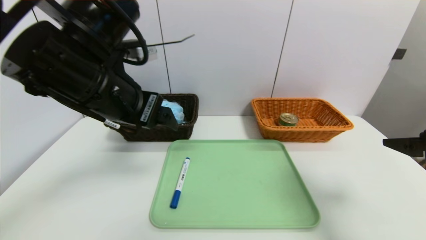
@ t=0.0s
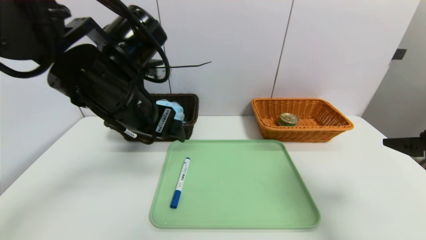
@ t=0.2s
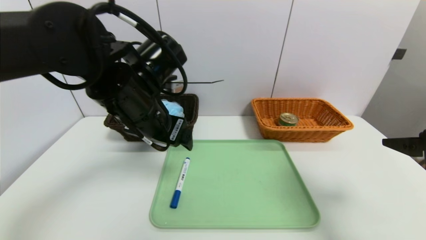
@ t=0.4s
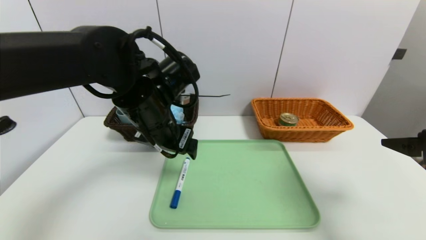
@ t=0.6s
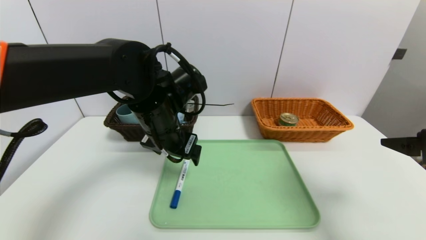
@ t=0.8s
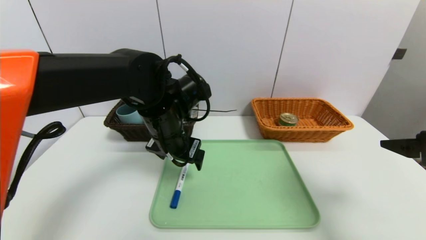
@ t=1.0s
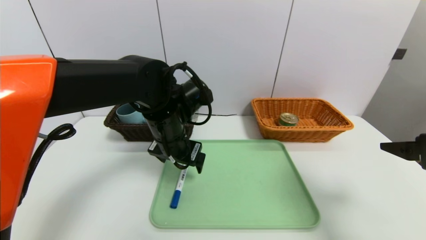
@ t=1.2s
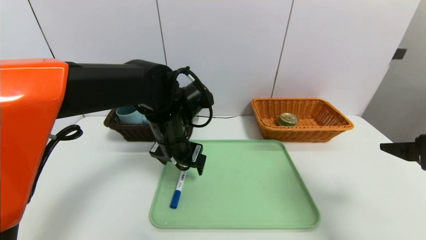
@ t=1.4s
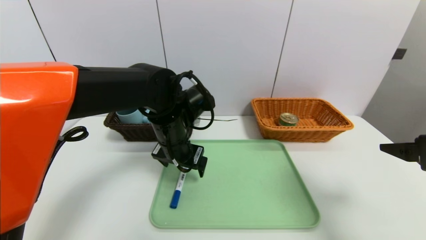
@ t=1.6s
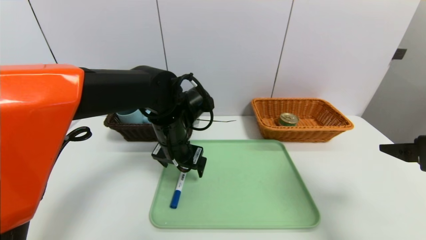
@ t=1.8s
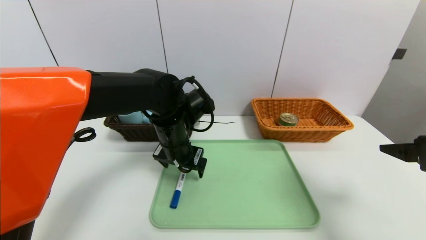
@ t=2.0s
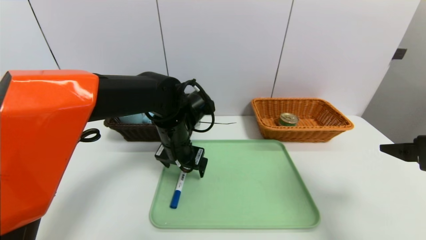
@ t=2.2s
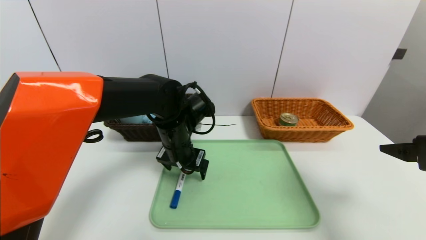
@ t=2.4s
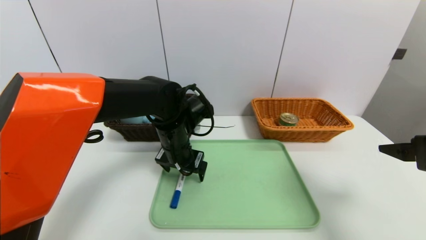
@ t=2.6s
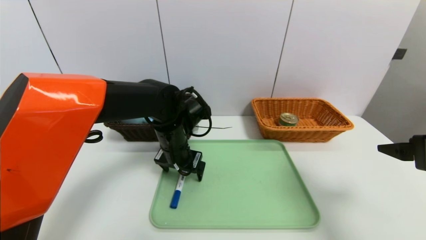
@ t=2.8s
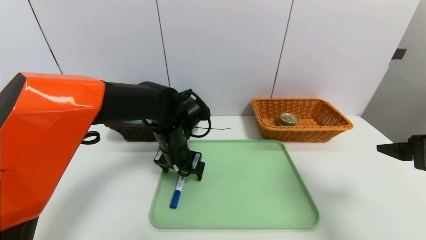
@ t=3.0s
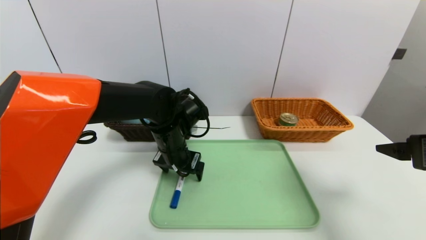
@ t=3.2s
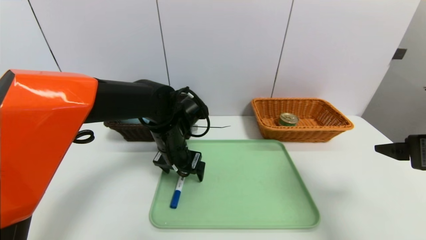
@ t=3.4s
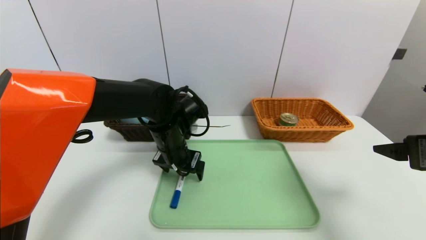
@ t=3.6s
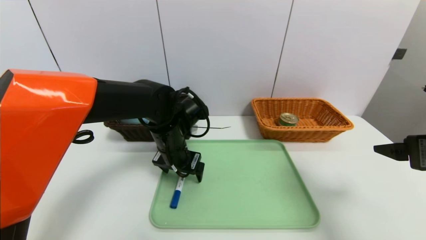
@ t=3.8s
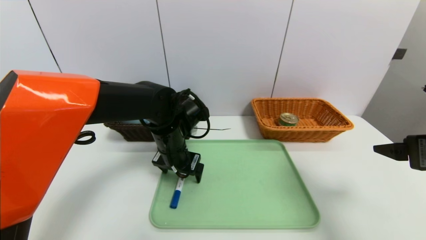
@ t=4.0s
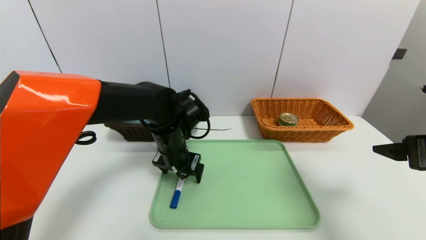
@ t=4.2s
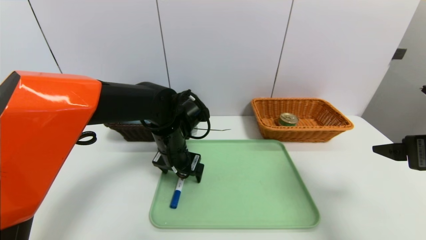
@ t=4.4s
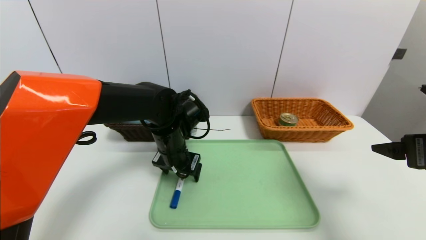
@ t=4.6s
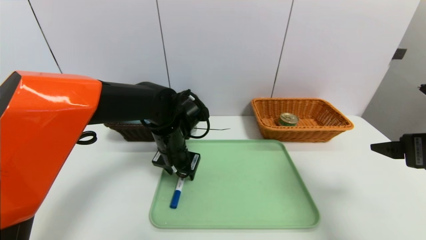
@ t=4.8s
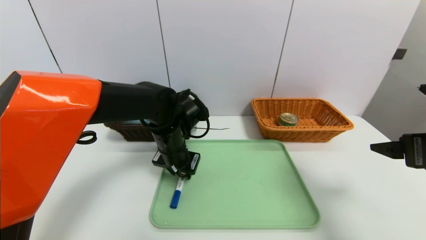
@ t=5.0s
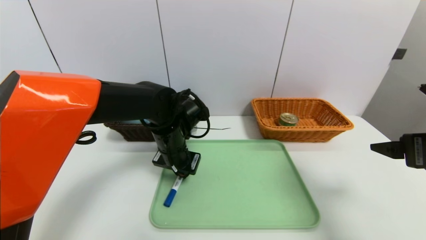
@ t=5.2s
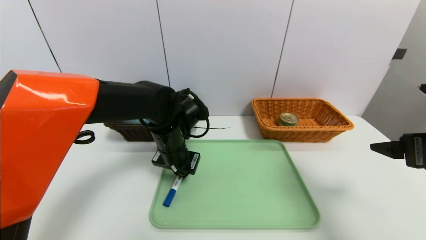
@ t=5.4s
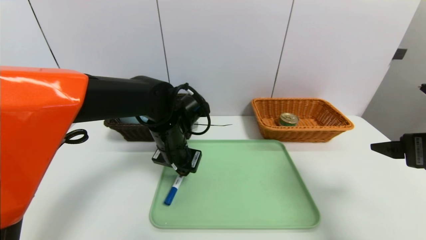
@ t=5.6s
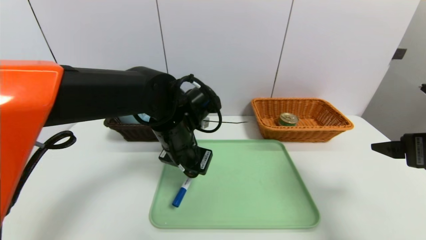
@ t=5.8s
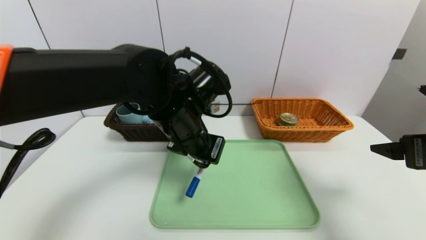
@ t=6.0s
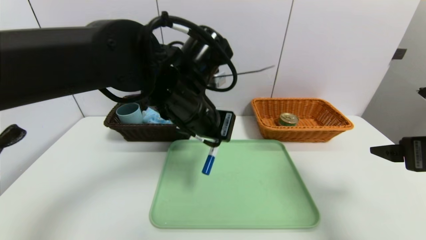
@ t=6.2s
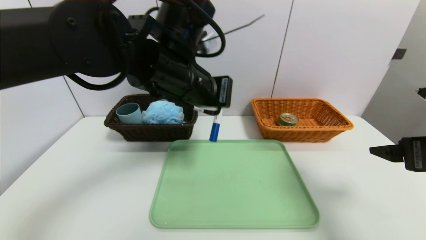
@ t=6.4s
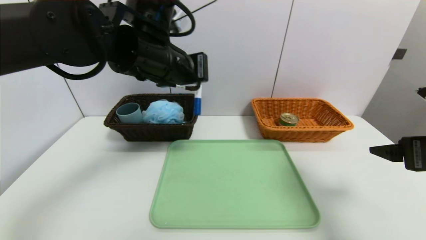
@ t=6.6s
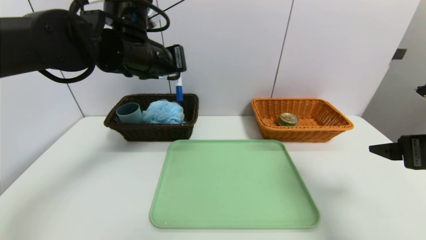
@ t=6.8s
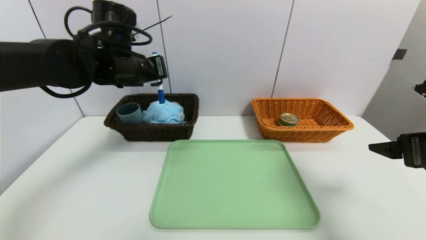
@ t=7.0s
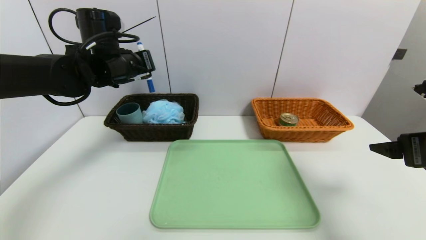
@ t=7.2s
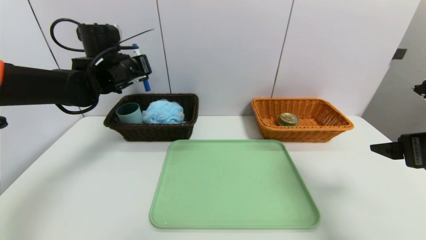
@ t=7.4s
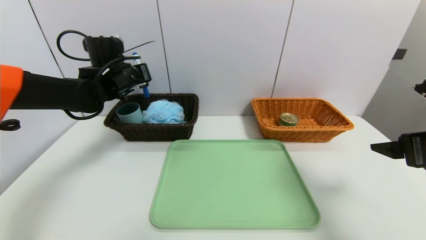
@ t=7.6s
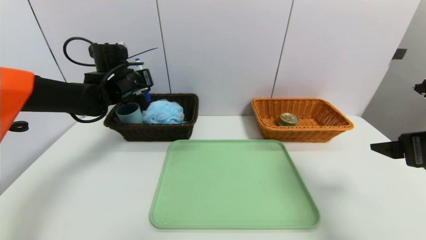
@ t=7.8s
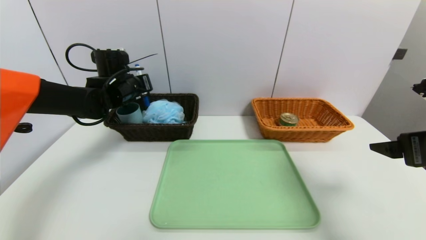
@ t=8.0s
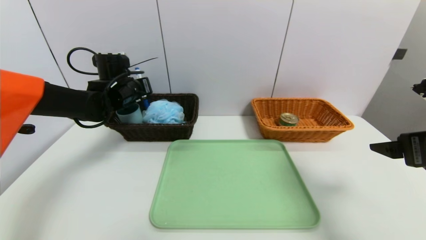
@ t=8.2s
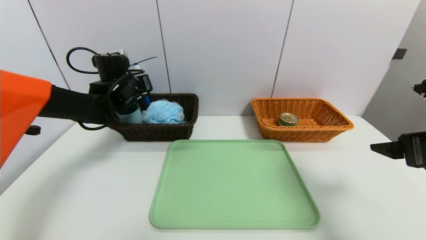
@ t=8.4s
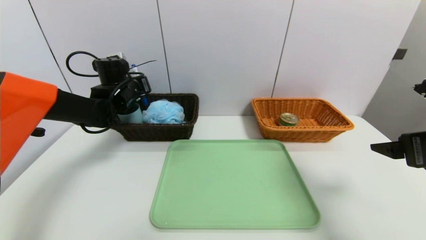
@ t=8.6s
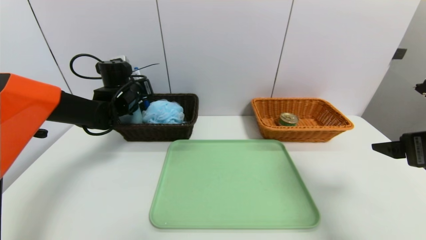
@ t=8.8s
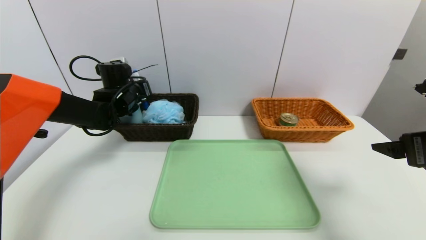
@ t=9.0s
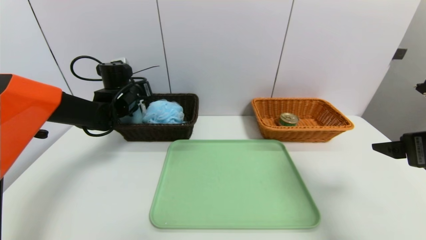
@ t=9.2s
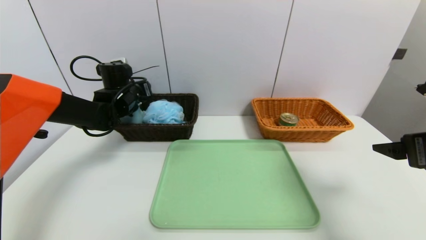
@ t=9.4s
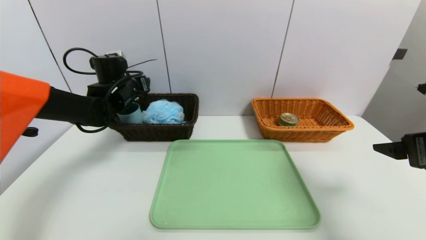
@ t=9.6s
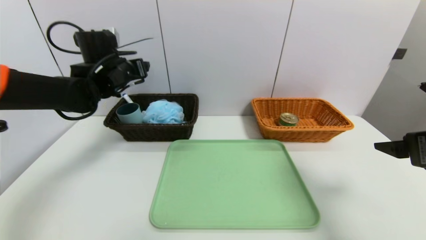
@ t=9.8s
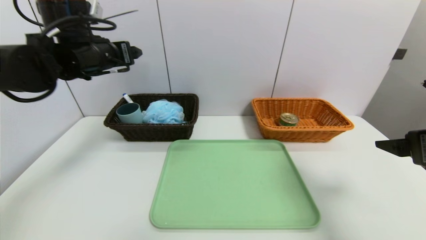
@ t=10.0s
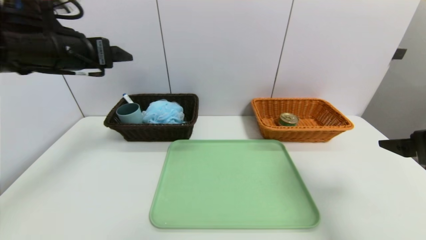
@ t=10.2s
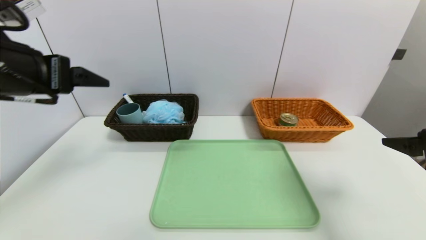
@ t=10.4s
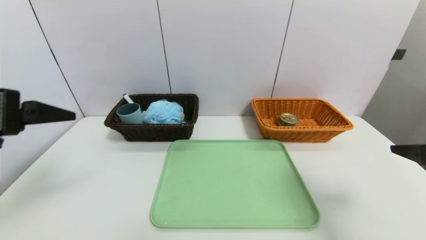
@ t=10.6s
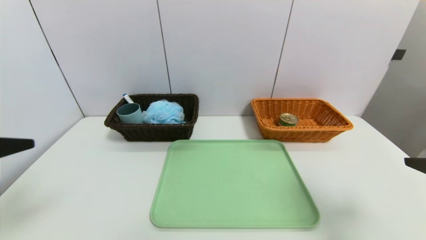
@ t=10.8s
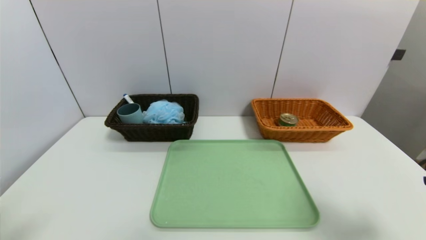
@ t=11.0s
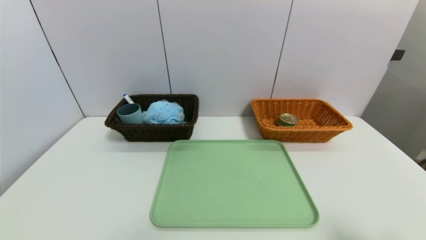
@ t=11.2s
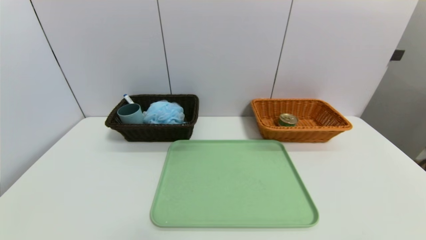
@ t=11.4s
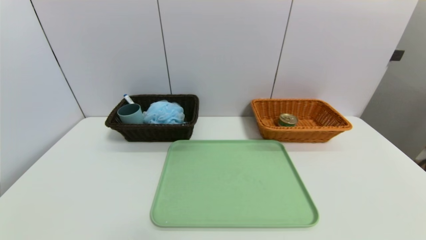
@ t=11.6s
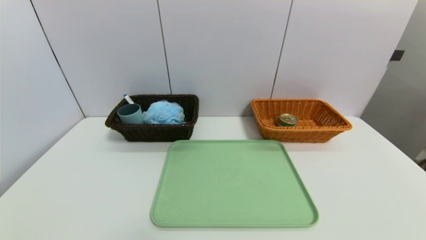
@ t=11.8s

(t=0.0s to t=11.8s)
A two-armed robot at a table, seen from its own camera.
Task of the whole recording: place the food in the right basket with the right gripper, and place the non food items in the left basket with the left gripper.
Step, t=0.0s - t=9.6s: Grasp the blue marker and put it in the left basket.
t=0.0s - t=1.4s: The left gripper shifts about 15 cm downward, forward and to the right.
t=1.4s - t=3.0s: The left gripper ends up approximately 5 cm from where it was.
t=3.0s - t=4.4s: Both grippers stay put.
t=4.4s - t=6.0s: The left gripper moves upward and backward, some 10 cm, and closes up.
t=6.0s - t=7.4s: The left gripper goes roughly 20 cm to the left and forward.
t=7.4s - t=8.8s: The left gripper shifts about 5 cm downward.
t=8.8s - t=10.4s: The left gripper shifts approximately 30 cm backward and upward, and opens.
t=10.4s - t=11.8s: The grippers both shift backward and downward by about 30 cm.

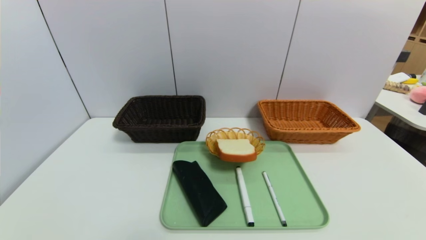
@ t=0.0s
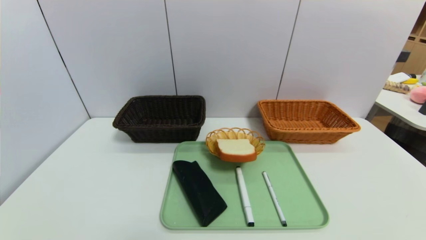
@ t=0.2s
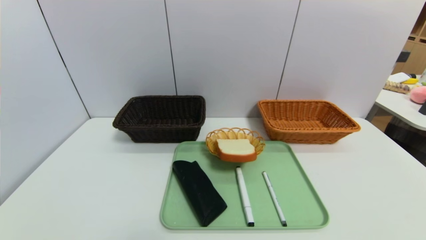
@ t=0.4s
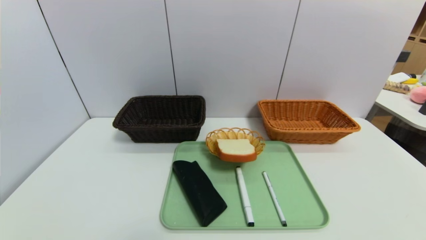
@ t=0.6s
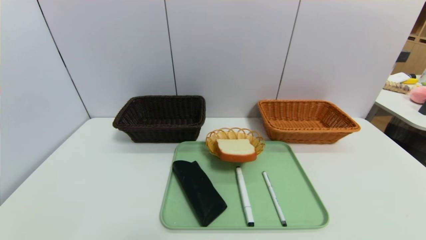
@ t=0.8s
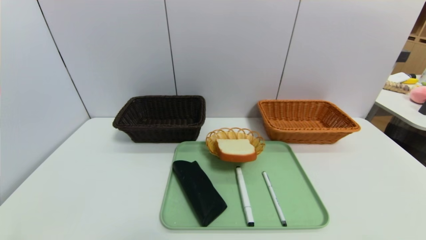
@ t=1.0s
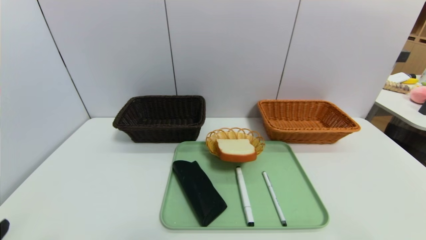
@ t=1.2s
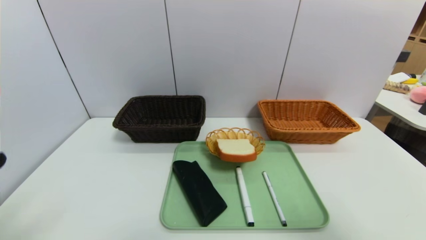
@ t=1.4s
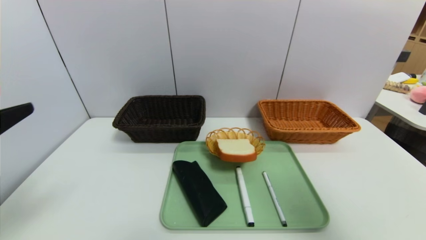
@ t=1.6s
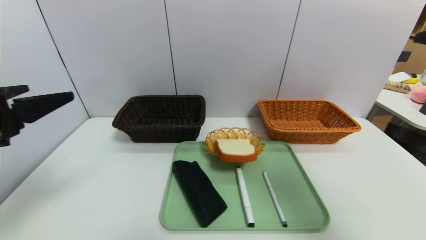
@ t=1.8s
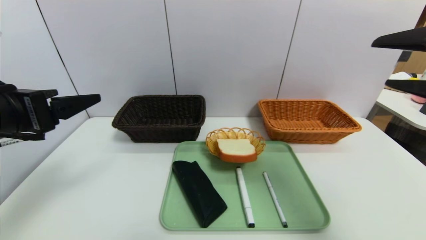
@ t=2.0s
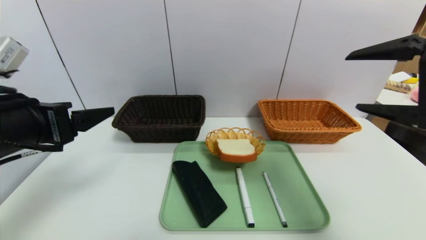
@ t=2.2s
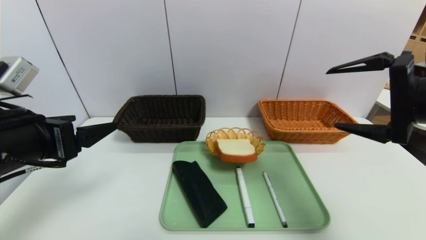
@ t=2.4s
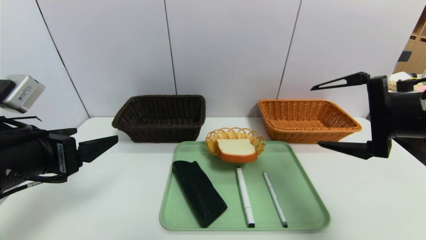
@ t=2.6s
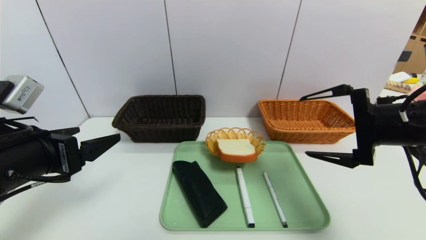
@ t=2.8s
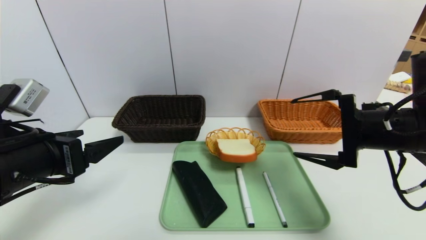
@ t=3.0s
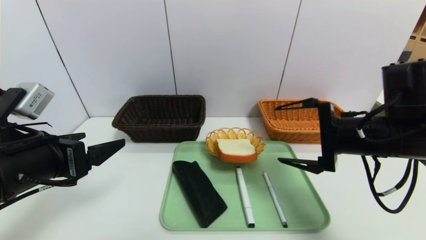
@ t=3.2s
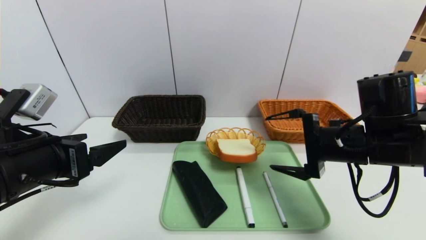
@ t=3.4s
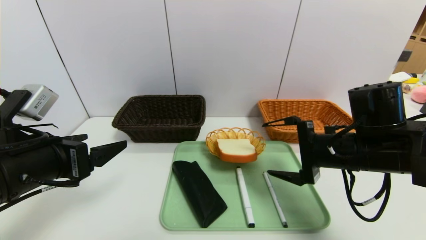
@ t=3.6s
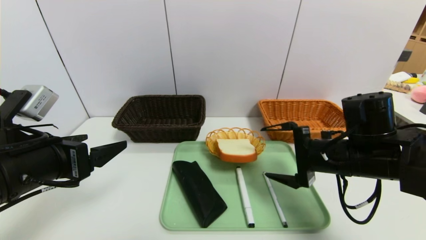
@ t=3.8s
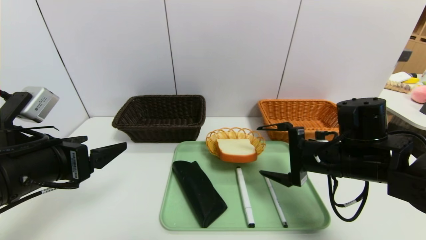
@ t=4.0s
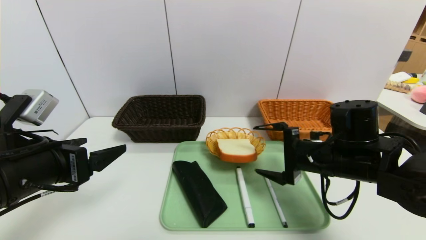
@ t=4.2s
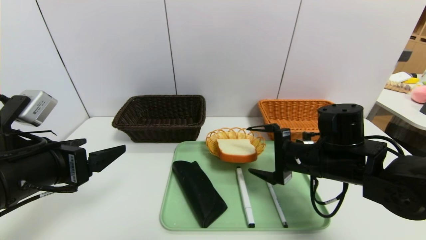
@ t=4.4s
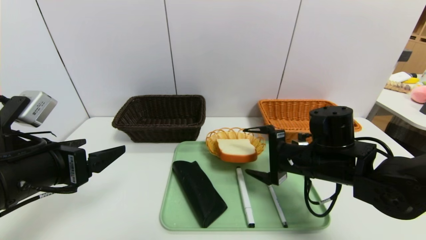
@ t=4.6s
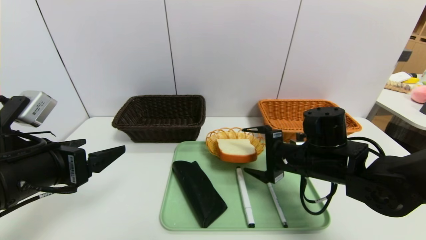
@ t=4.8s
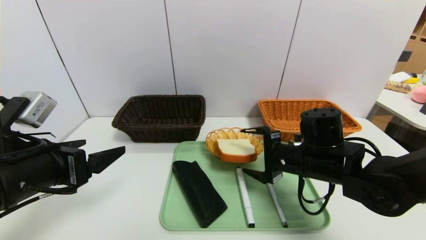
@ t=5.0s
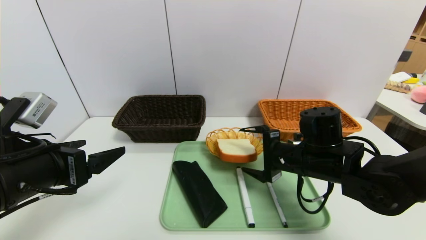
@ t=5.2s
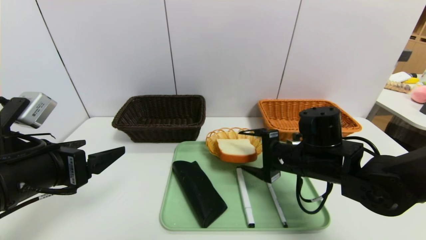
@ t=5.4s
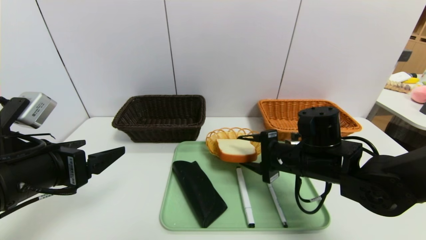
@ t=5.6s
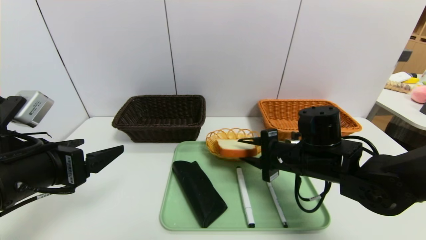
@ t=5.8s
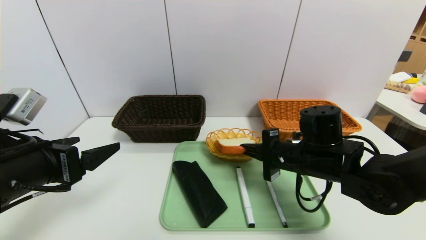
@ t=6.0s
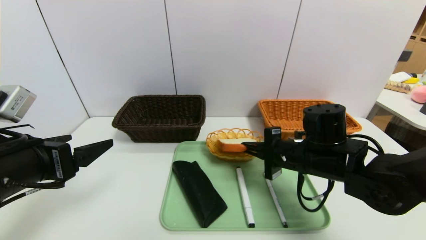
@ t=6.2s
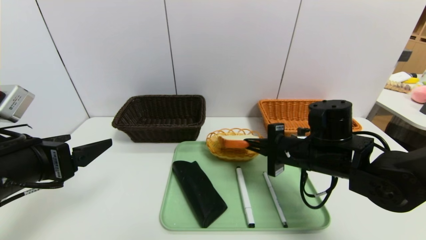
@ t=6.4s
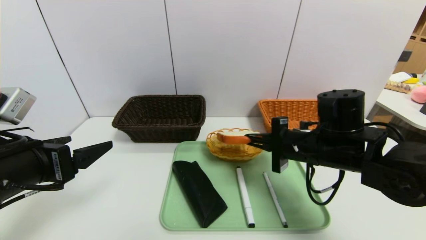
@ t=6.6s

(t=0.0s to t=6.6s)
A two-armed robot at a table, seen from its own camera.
Task of the whole recording: place the food in the right basket with the right gripper, and place the non food items in the left basket with the left gripper.
t=0.0s - t=1.6s: Both grippers move upward and forward, about 25 cm.
t=1.6s - t=3.2s: The left gripper goes some 10 cm downward and forward, while the right gripper travels forward, downward and to the left by about 20 cm.
t=3.2s - t=5.0s: The right gripper moves downward and to the left, roughly 10 cm.
t=5.0s - t=6.6s: The right gripper closes.
